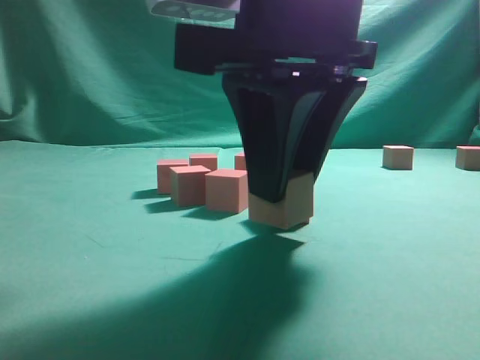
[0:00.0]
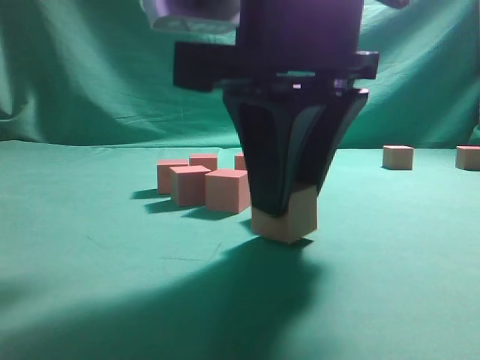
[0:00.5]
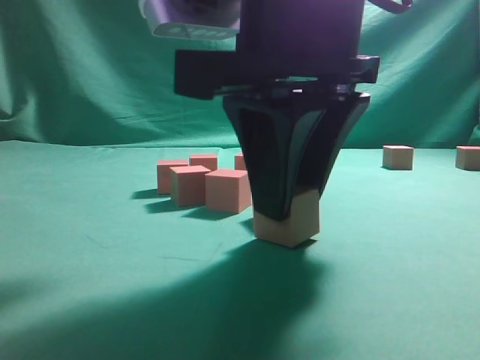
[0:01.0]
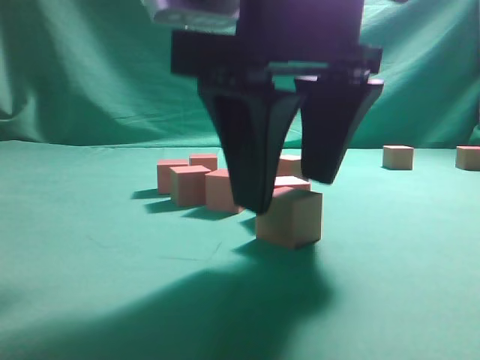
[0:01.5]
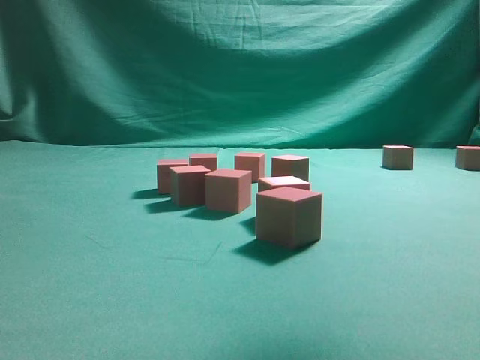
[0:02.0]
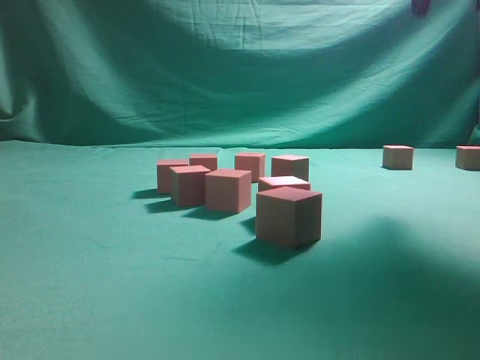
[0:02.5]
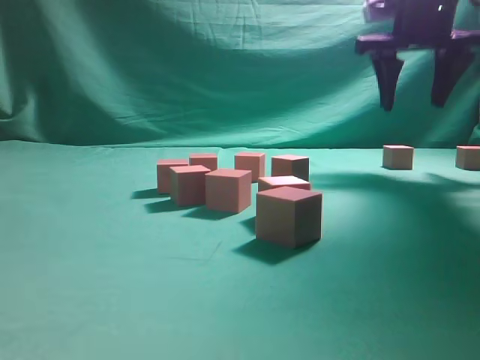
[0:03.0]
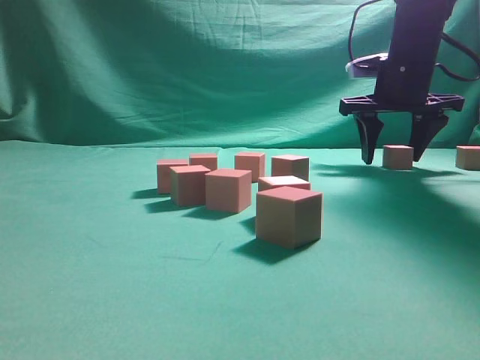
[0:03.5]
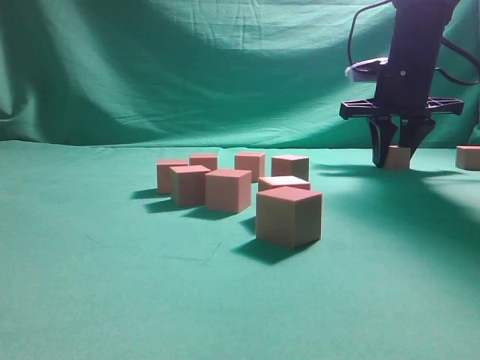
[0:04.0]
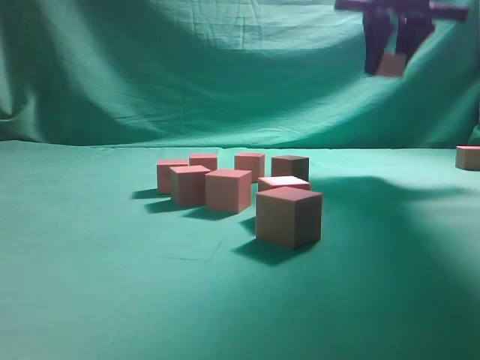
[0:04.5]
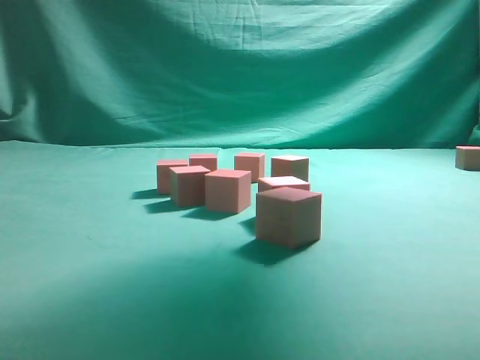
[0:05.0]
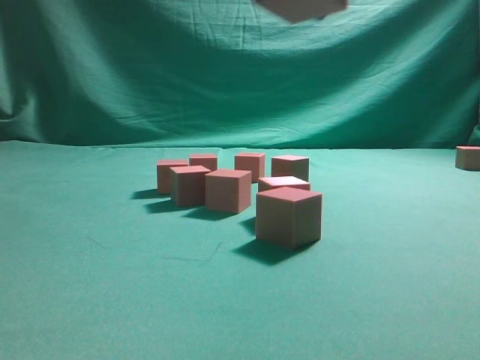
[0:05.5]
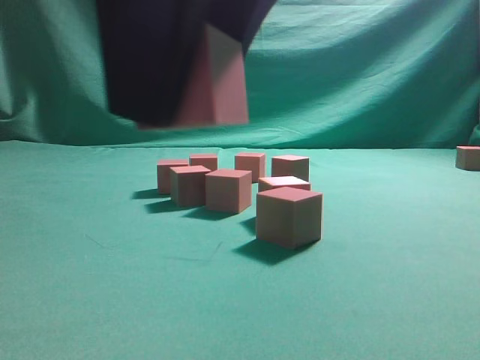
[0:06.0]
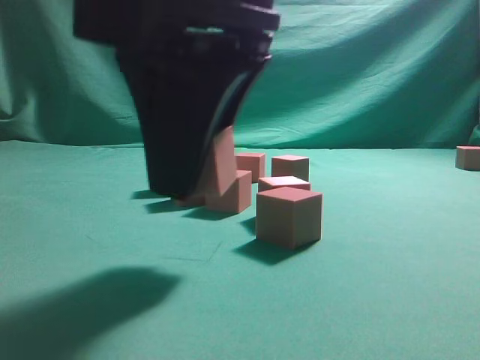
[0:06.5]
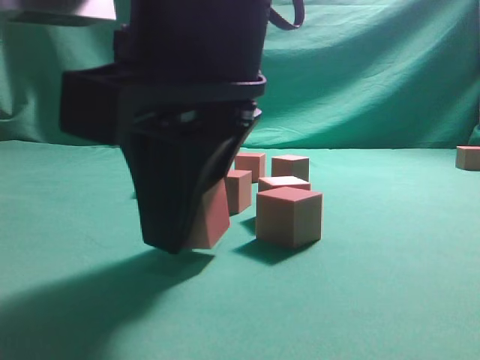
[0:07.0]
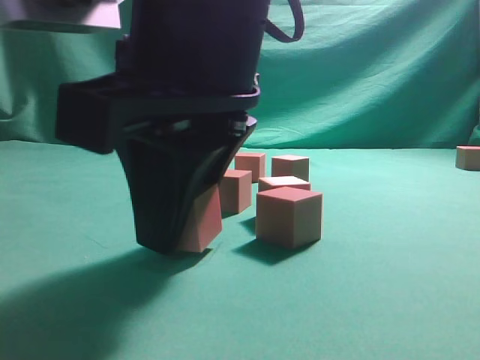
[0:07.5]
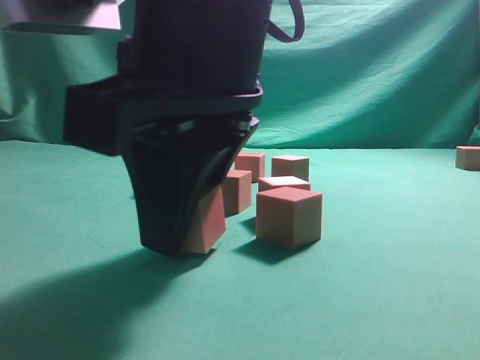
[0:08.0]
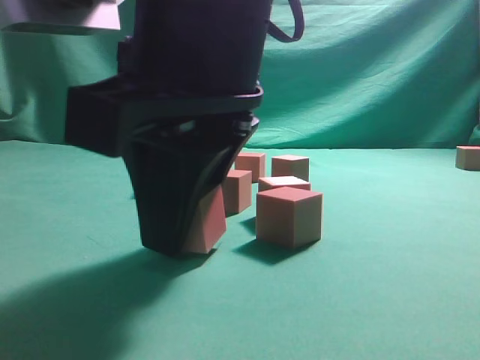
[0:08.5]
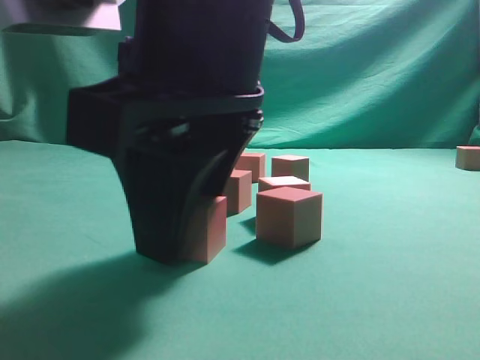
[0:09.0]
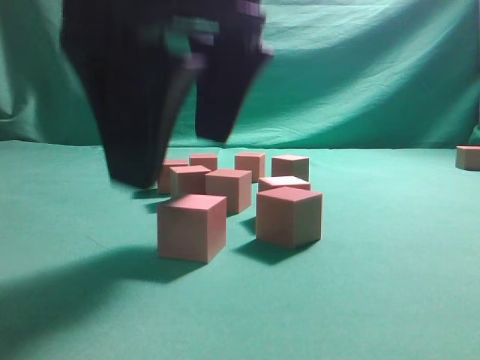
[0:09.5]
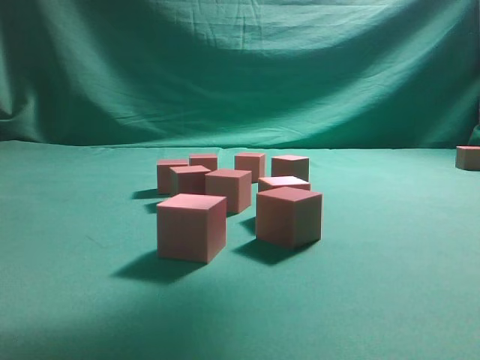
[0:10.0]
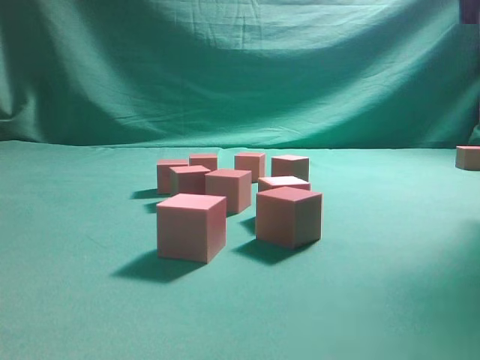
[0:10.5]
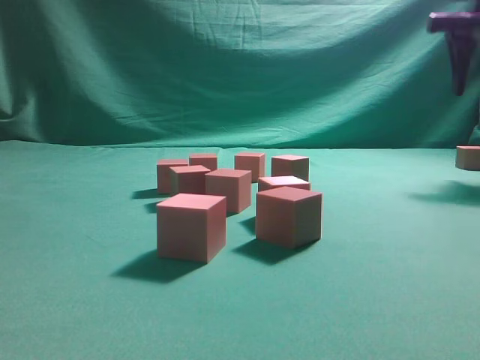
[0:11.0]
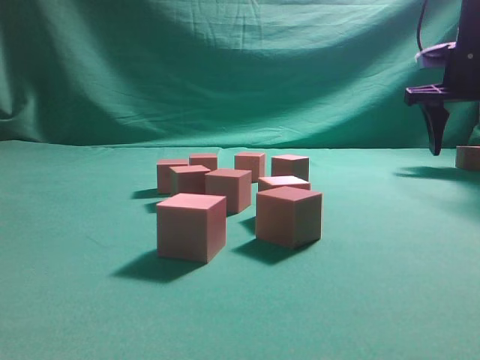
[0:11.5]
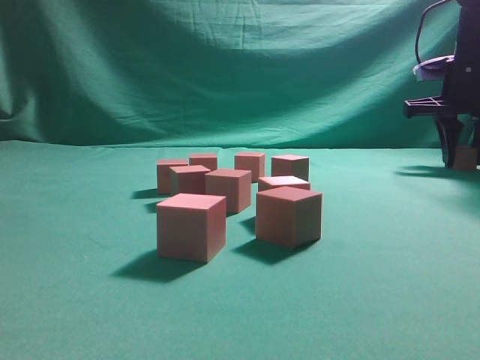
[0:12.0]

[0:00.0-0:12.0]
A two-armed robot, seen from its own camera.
Task of the whole recording: pick up the multiple cubes in two columns one by one and place them in another position on the table.
Step, 0:02.0 to 0:04.0: Pick up the block on the table.
Step, 0:04.5 to 0:09.5: Place the block at the correct position to assemble the letter S.
0:00.0 to 0:02.0: The right gripper moves upward and to the right, about 15 cm, and opens up.
0:02.0 to 0:04.0: The right gripper shifts about 35 cm forward and downward, and closes up.
0:04.0 to 0:06.0: The right gripper shifts roughly 40 cm backward and to the left.
0:06.0 to 0:08.0: The right gripper moves downward and forward, some 10 cm.
0:08.0 to 0:10.0: The right gripper travels upward and to the right by some 20 cm, and opens its fingers.
0:10.0 to 0:12.0: The right gripper heads forward, to the right and downward, covering about 35 cm, and closes up.

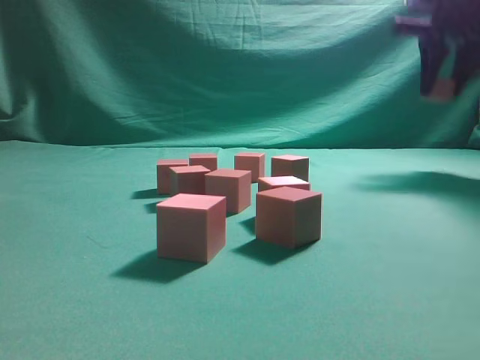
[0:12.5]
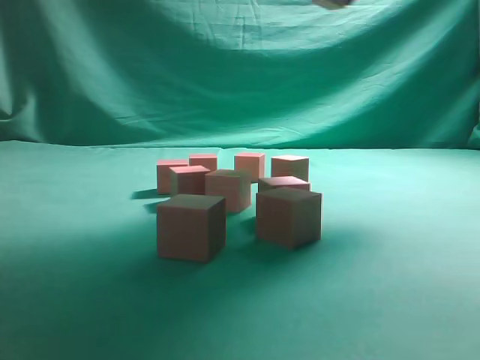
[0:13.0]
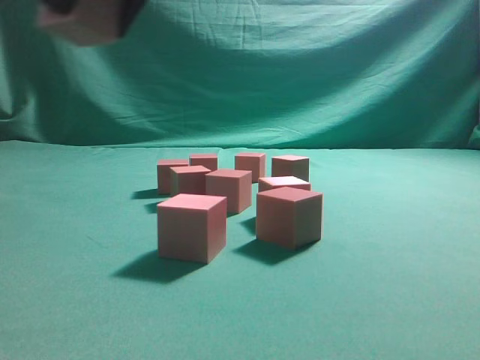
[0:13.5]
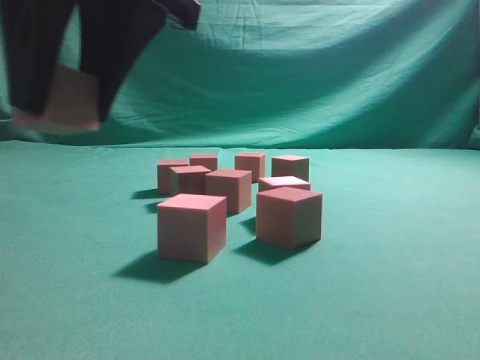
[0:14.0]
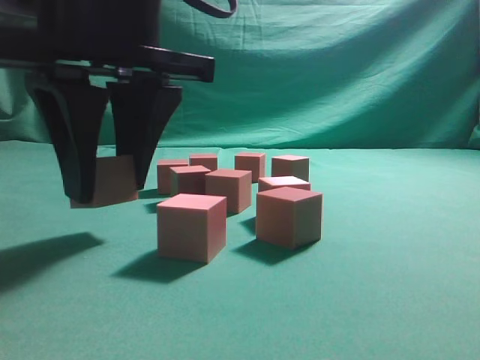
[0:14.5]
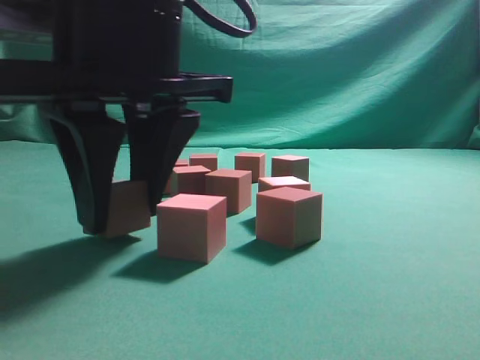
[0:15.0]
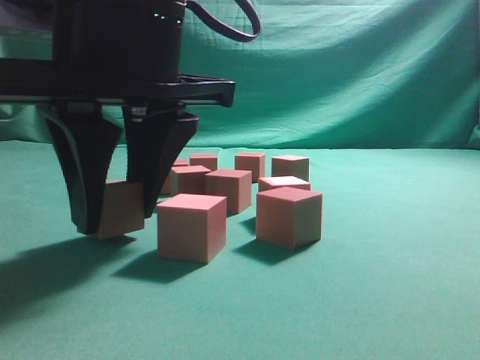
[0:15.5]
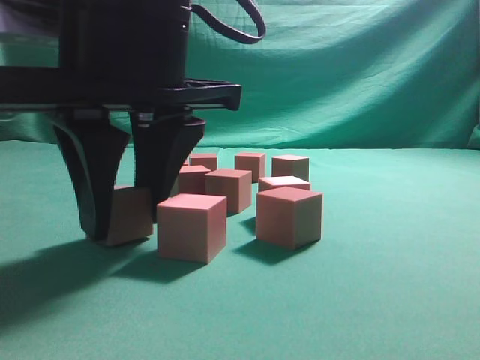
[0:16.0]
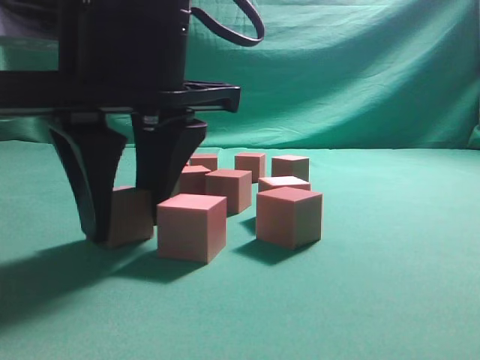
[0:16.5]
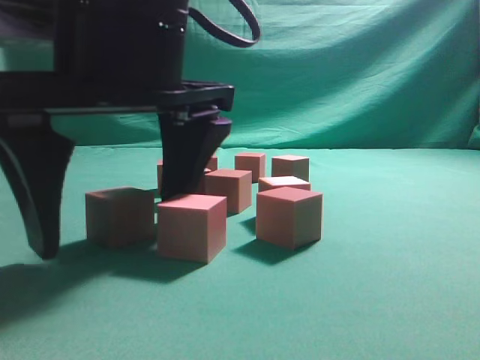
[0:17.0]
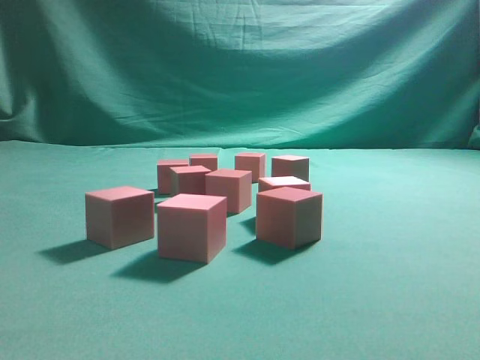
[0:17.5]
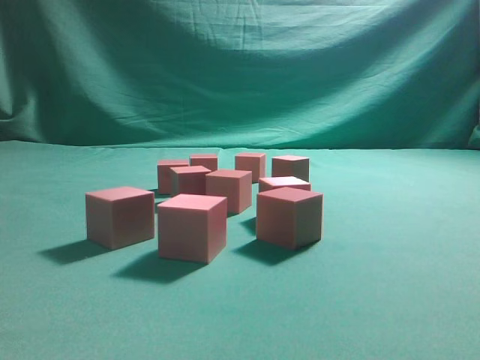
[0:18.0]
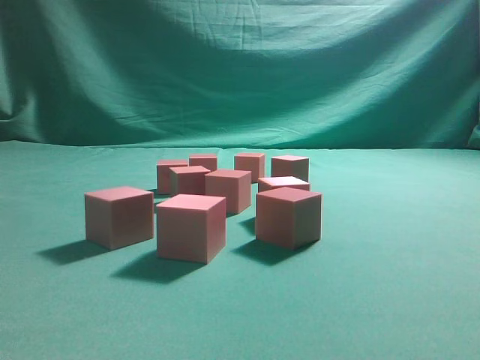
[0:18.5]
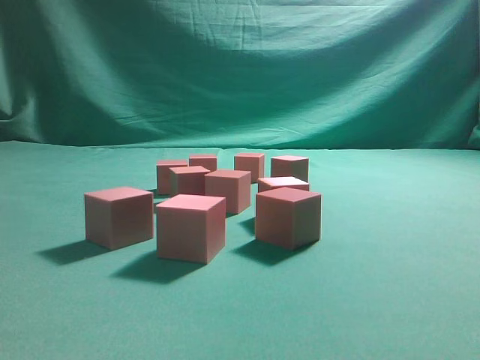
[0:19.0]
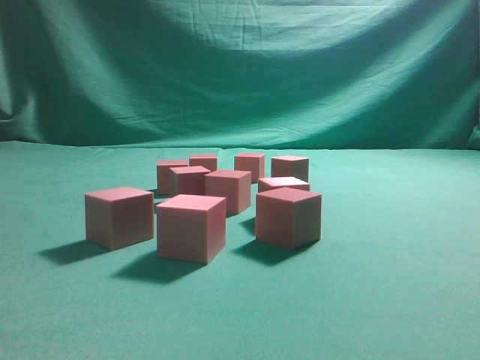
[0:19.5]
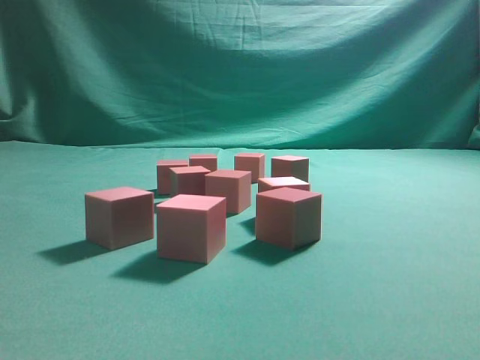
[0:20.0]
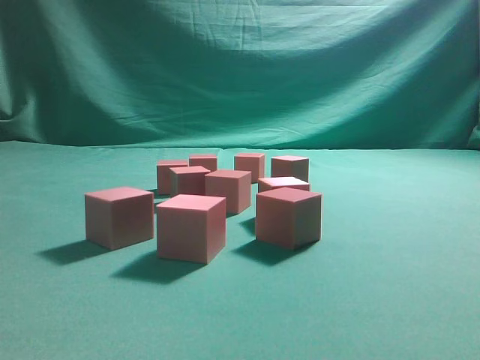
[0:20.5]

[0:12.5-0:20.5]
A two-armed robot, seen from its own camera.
Task of the whole recording: pick up the multiple cubes in two columns one by one and place them in another position on the table.
Step, 0:12.5 to 0:17.0: Place the block at the correct position to assemble the letter S.
0:12.5 to 0:14.5: The right gripper shifts some 40 cm to the left and backward.
0:14.5 to 0:16.5: The grippers stay close to where they were, moving slightly.
0:16.5 to 0:18.5: The right gripper goes about 50 cm upward, to the right and backward, and closes its fingers.
